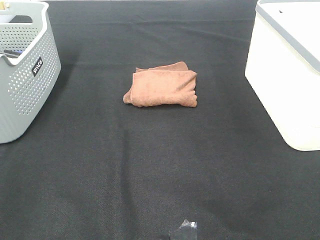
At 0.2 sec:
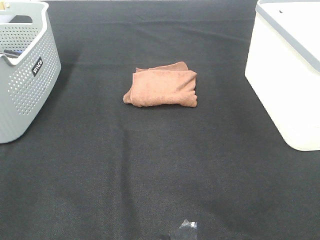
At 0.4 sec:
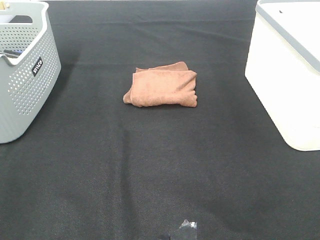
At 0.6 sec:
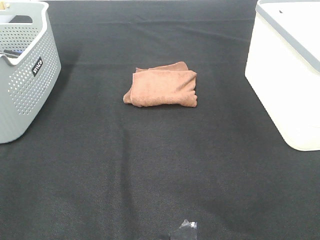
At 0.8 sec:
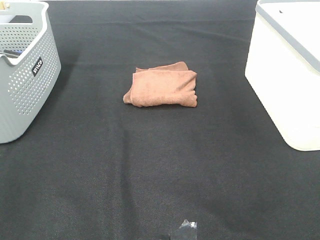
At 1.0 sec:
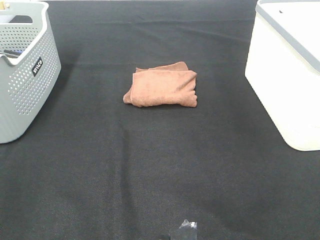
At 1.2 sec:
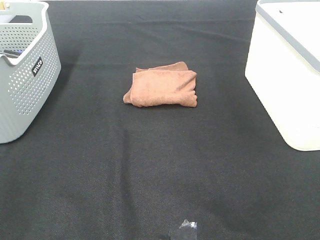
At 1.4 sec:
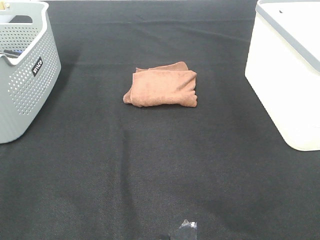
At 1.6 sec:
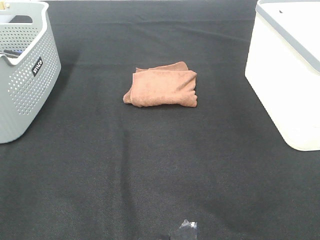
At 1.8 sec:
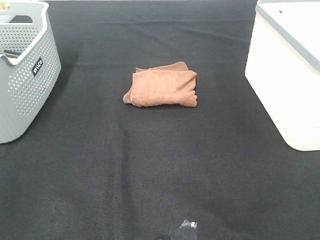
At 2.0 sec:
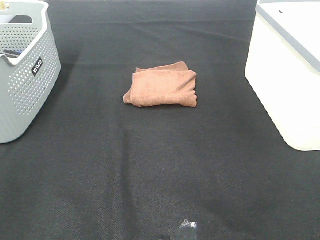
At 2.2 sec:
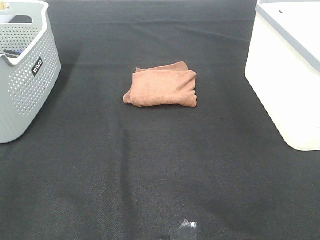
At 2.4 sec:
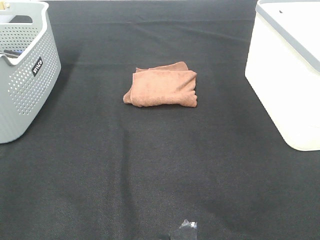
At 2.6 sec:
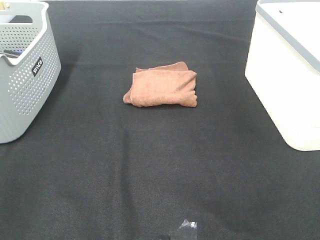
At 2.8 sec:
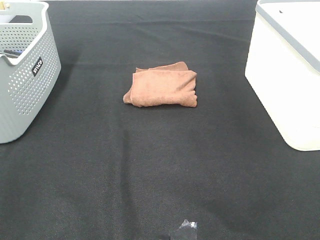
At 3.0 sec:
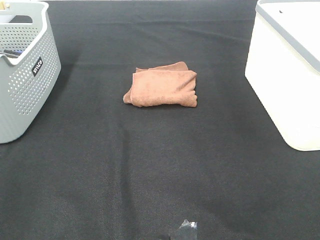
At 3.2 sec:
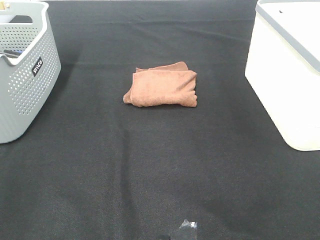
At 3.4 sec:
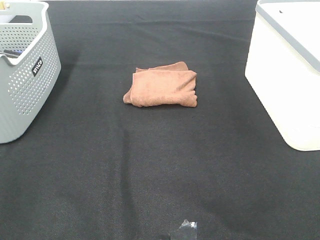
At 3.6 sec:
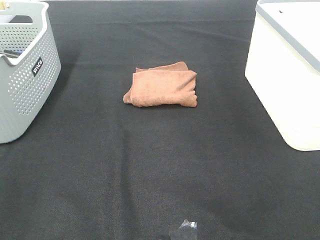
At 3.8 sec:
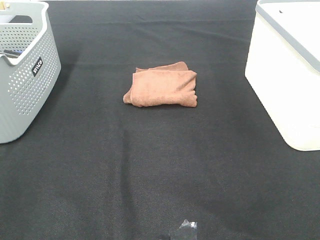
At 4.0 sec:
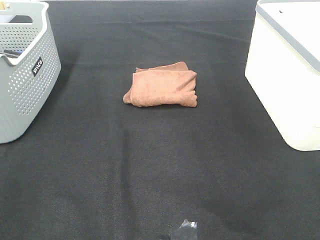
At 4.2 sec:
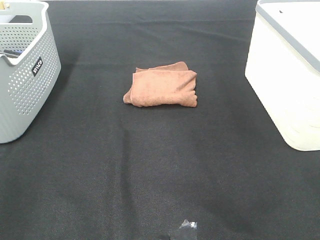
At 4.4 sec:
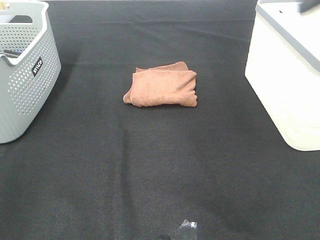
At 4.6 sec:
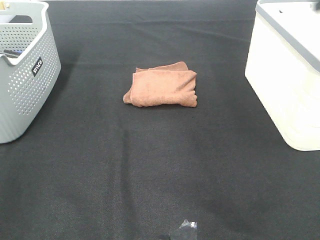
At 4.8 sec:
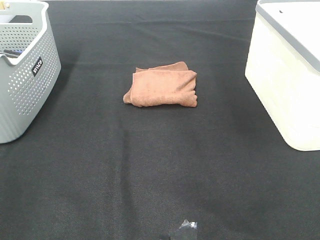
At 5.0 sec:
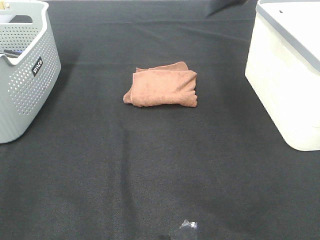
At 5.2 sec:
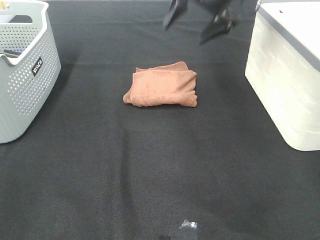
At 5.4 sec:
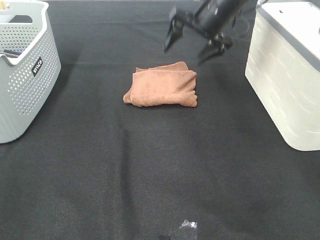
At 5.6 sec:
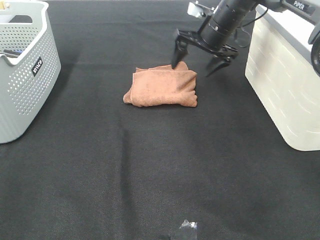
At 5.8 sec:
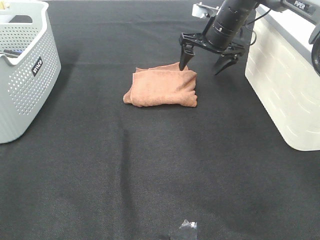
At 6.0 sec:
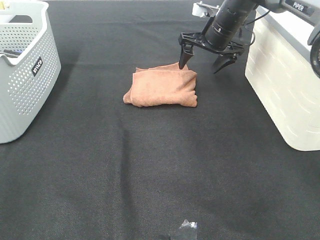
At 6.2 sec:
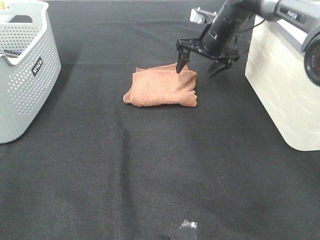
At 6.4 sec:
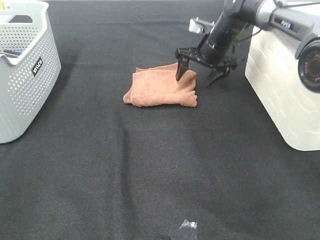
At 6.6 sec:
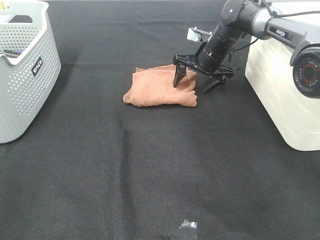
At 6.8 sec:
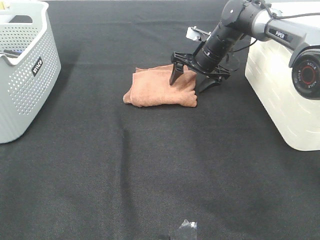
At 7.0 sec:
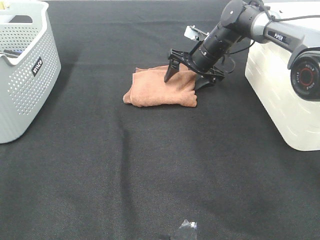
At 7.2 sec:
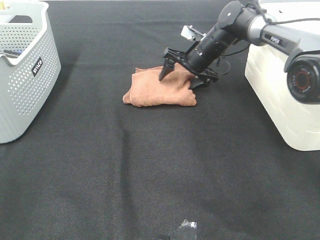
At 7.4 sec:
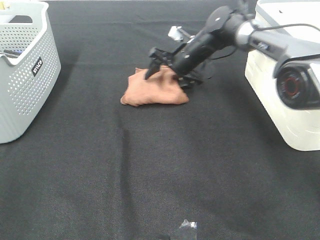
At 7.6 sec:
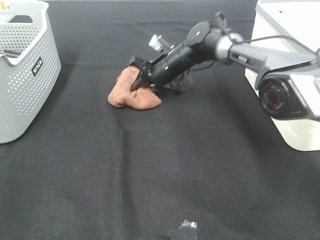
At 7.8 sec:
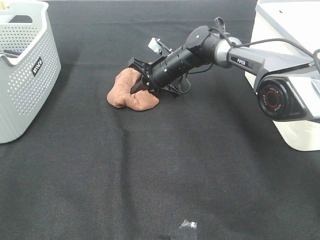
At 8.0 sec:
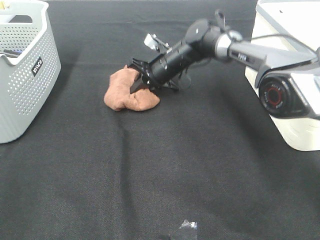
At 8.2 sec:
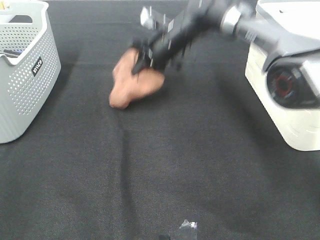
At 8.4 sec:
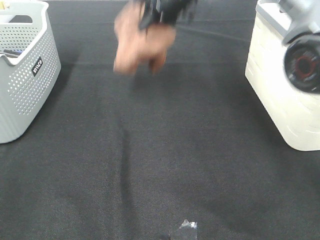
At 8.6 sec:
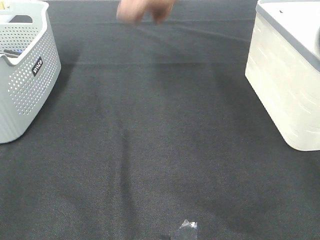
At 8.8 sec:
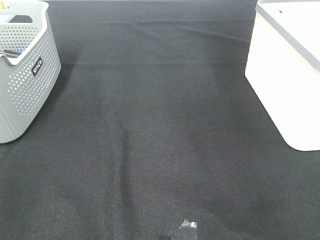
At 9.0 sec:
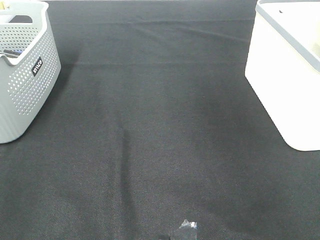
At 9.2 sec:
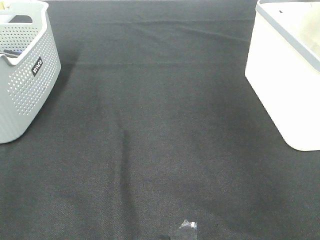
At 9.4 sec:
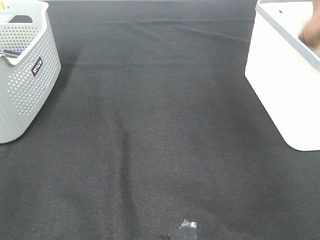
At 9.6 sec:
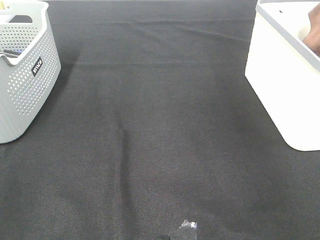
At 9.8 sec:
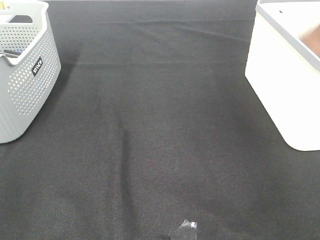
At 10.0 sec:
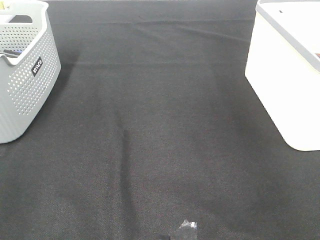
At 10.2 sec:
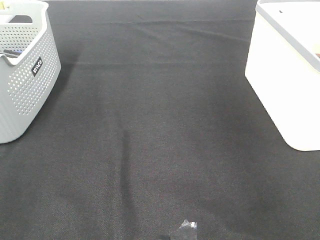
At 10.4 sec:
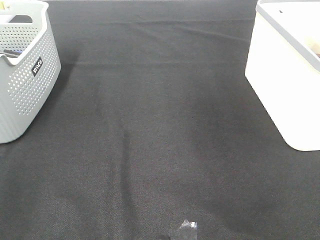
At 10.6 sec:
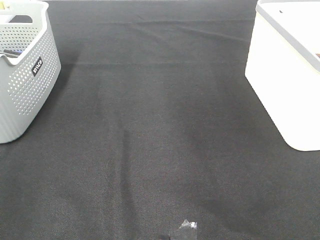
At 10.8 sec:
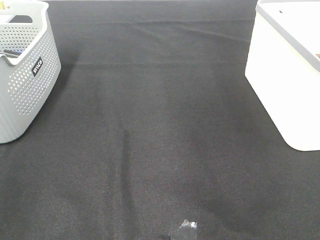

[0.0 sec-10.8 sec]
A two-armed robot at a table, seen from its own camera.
Step, 0.0 sec to 7.6 sec: Right hand: grab the folded brown towel.
Step, 7.8 sec to 10.0 sec: Right hand: place the brown towel in right basket.
0.0 sec to 3.0 sec: Neither gripper changes place.
4.6 sec to 6.2 sec: The right gripper goes some 35 cm downward, forward and to the left.
6.2 sec to 7.8 sec: The right gripper heads to the left and downward, covering about 15 cm, and closes its fingers.
7.8 sec to 9.2 sec: The right gripper shifts about 50 cm to the right and upward.

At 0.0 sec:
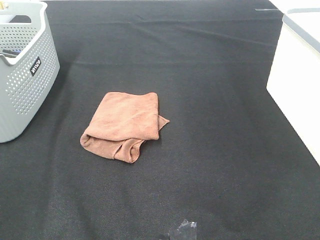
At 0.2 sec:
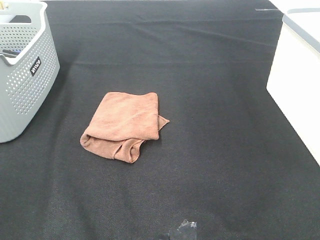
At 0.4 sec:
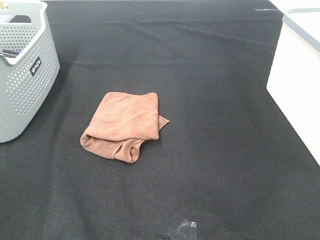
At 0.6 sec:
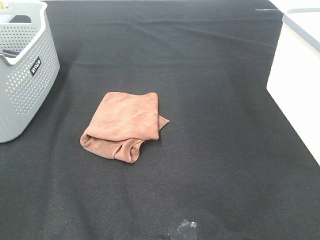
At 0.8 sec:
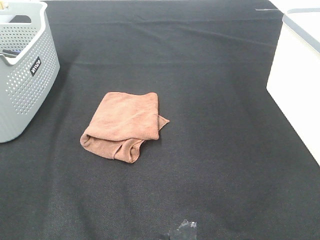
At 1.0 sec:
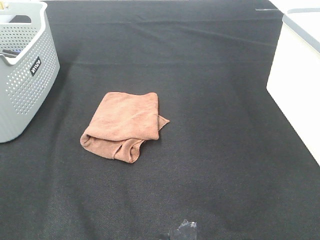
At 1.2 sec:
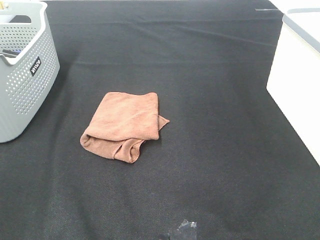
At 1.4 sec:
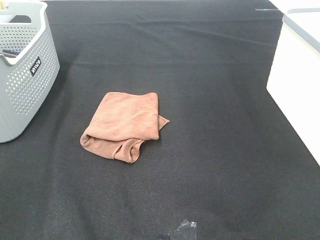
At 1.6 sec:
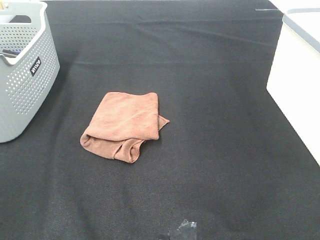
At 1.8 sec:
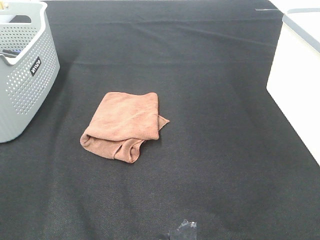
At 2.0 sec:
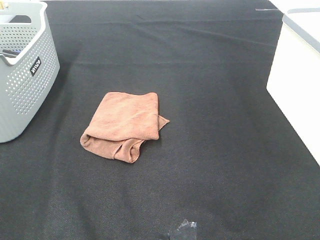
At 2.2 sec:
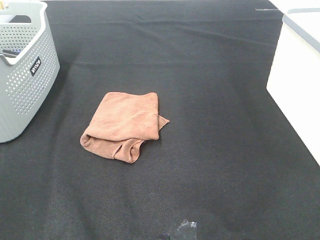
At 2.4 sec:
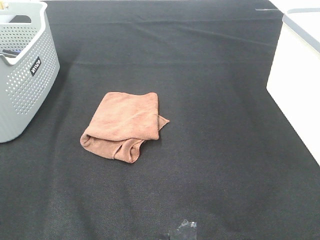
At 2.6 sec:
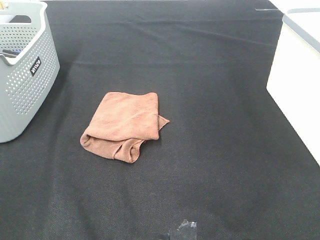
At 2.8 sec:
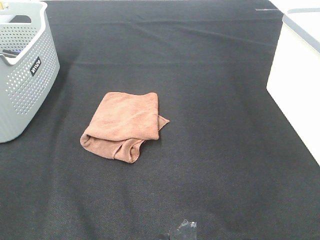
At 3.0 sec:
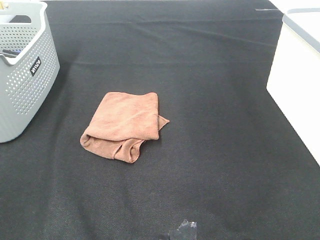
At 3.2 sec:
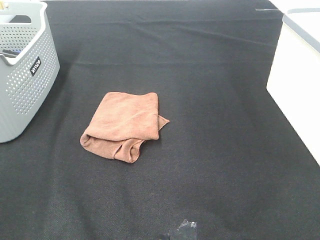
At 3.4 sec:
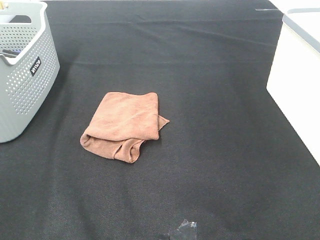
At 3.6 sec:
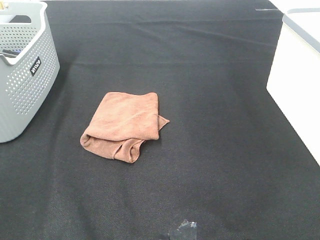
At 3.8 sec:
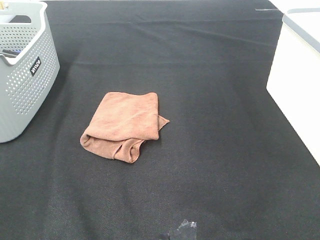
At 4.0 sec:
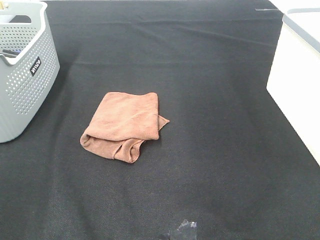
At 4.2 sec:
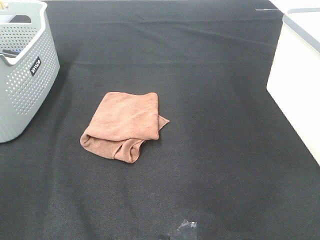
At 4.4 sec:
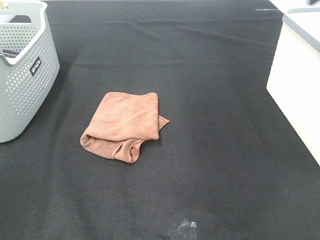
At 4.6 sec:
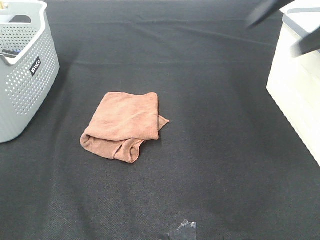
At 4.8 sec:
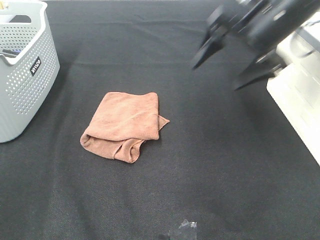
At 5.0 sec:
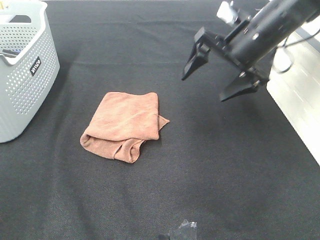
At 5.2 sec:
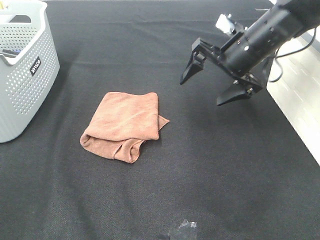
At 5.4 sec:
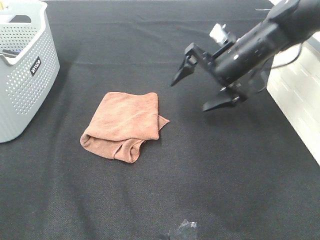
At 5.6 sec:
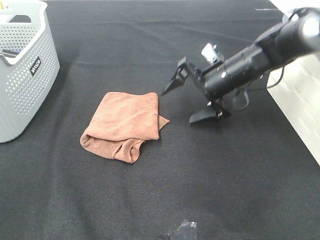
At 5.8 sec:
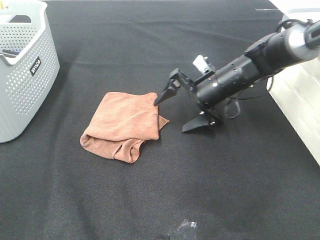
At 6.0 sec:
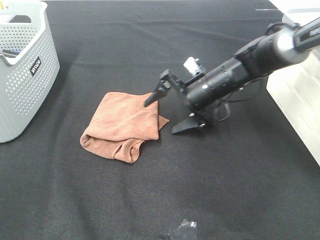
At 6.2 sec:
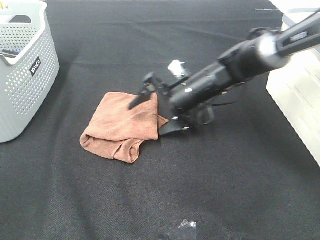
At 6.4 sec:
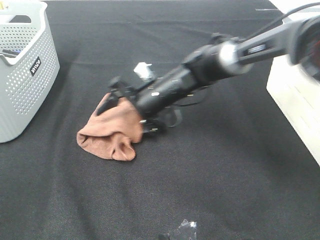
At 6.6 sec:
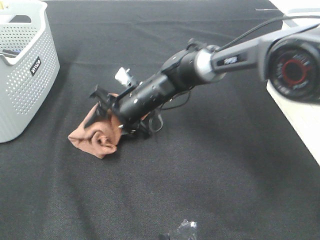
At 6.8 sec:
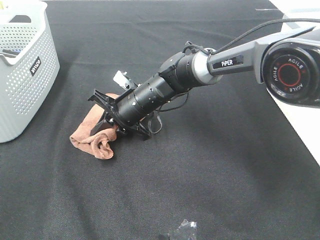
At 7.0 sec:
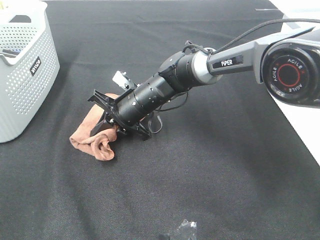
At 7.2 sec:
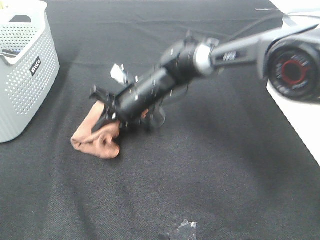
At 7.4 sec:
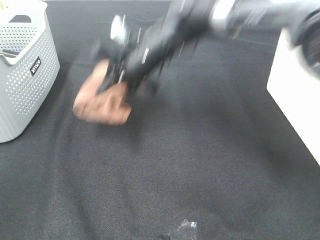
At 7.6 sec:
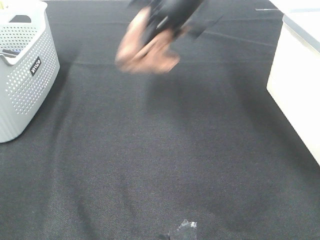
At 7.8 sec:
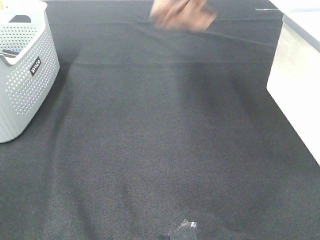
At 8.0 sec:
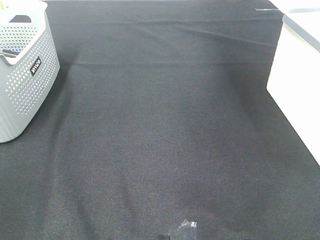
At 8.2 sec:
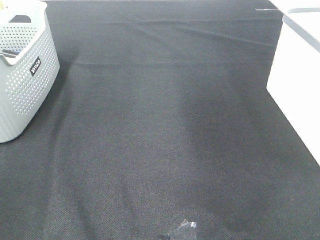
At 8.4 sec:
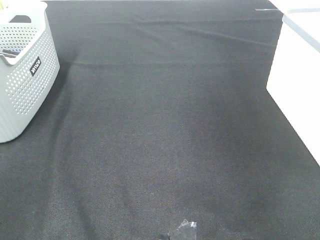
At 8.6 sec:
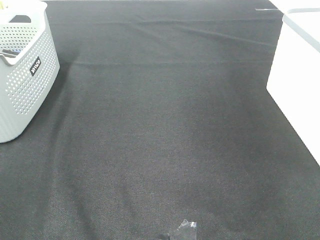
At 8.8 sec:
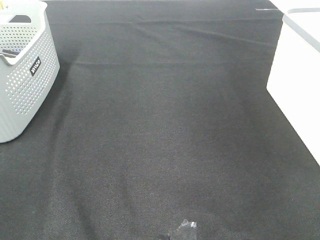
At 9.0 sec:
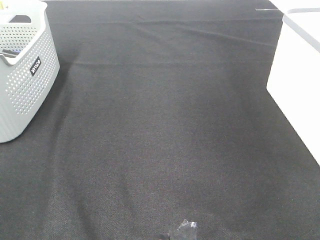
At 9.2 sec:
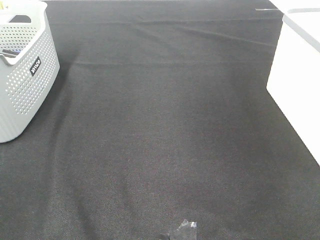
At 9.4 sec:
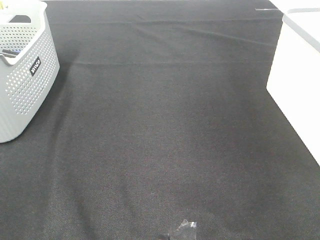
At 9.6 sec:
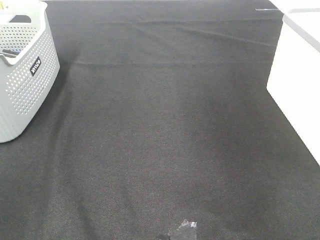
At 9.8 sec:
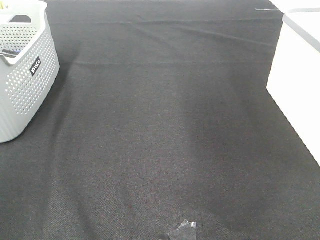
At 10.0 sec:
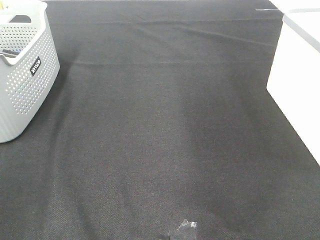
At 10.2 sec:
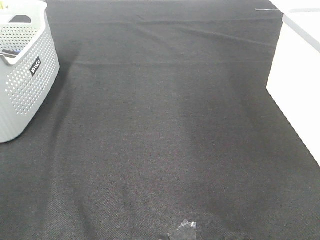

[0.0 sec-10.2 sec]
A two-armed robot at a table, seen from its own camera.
Step, 0.0 sec to 6.8 sec: Right hand: grab the folded brown towel.
Step, 7.0 sec to 9.4 sec: Right hand: place the brown towel in right basket.
0.0 sec to 3.0 sec: The two grippers keep their place.
4.4 sec to 5.8 sec: The right gripper moves downward, to the left and forward, approximately 35 cm.
5.8 sec to 7.2 sec: The right gripper goes some 15 cm to the left, and closes.
7.2 sec to 8.8 sec: The right gripper is displaced to the right and upward by about 50 cm.

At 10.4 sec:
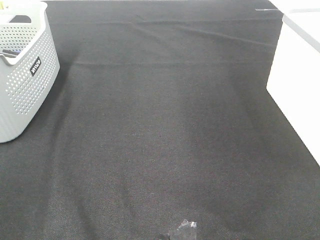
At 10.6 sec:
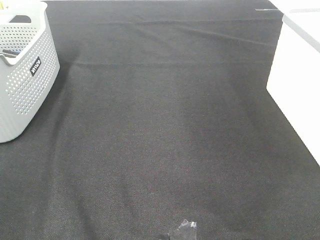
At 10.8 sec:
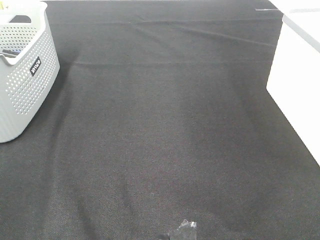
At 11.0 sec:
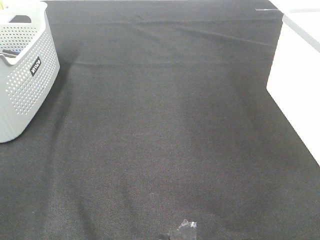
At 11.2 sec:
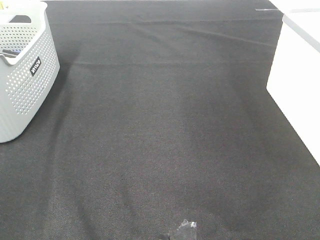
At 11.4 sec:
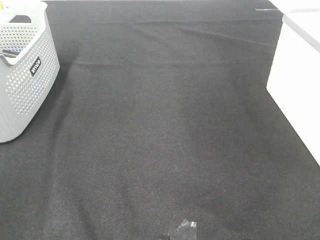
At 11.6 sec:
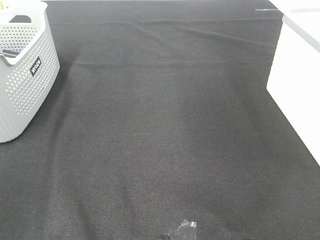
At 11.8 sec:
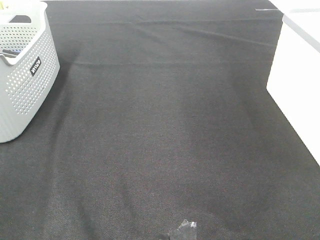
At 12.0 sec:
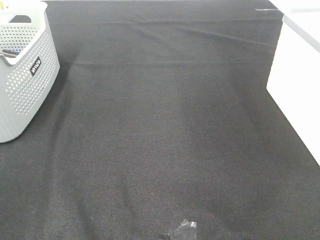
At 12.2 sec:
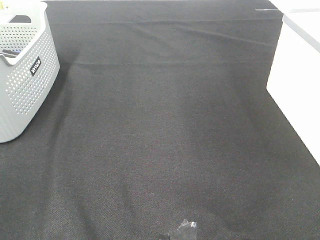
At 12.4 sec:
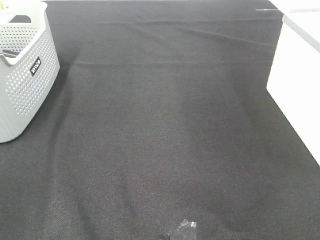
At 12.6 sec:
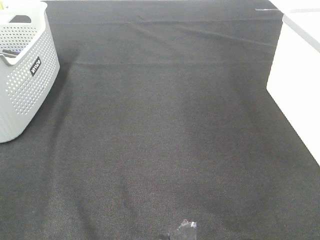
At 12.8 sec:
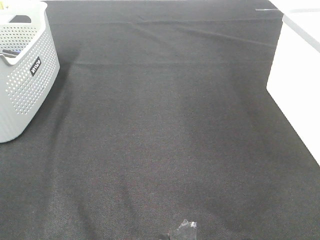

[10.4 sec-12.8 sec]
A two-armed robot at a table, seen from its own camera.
11.6 sec to 12.8 sec: The two grippers keep their place.
